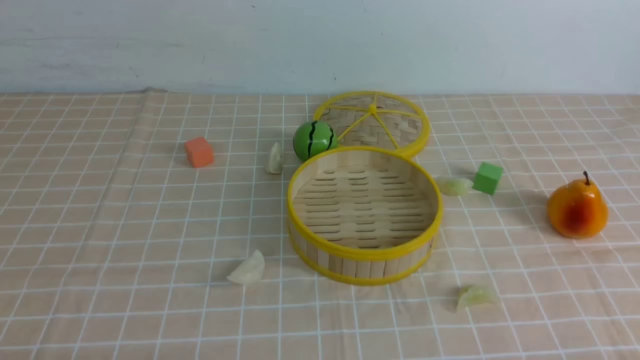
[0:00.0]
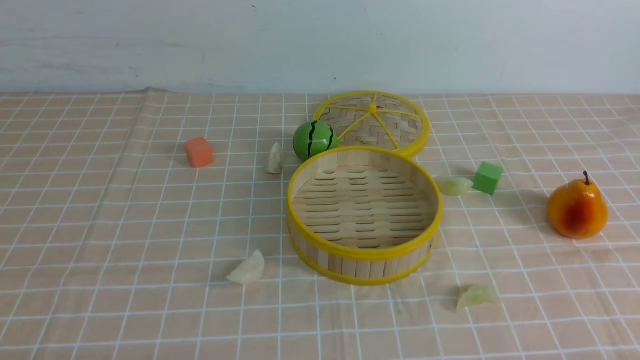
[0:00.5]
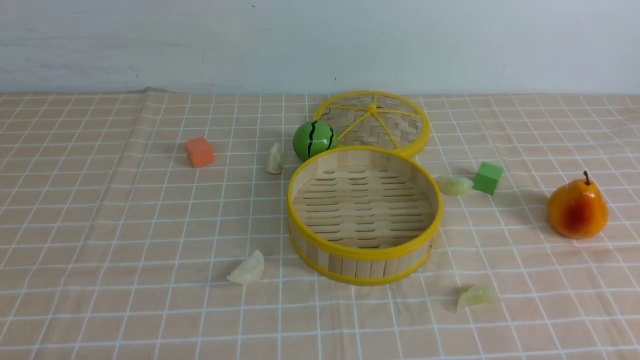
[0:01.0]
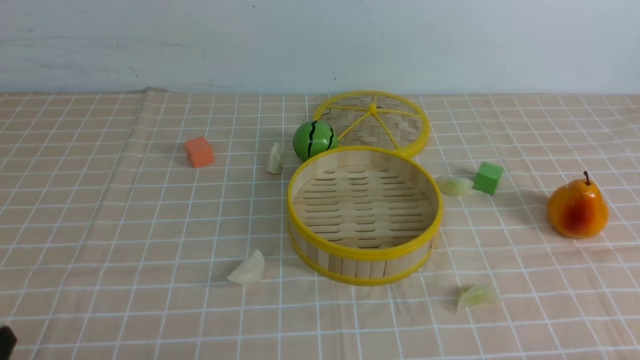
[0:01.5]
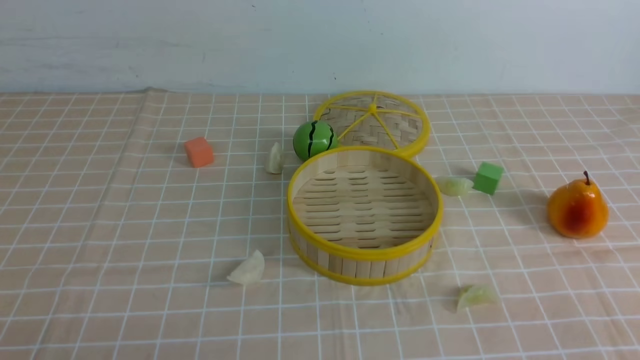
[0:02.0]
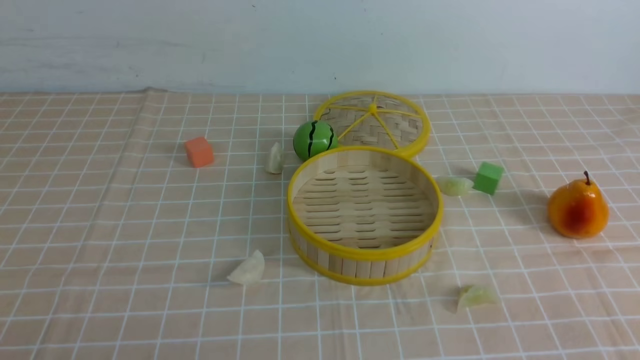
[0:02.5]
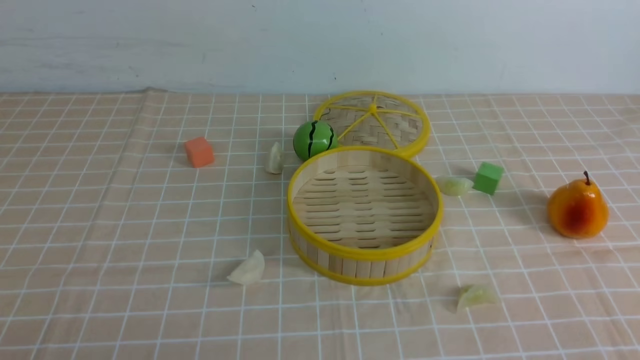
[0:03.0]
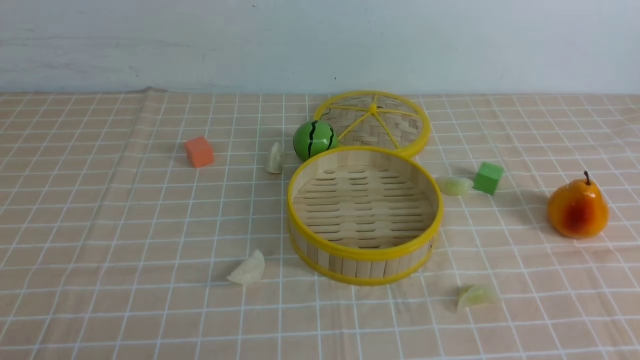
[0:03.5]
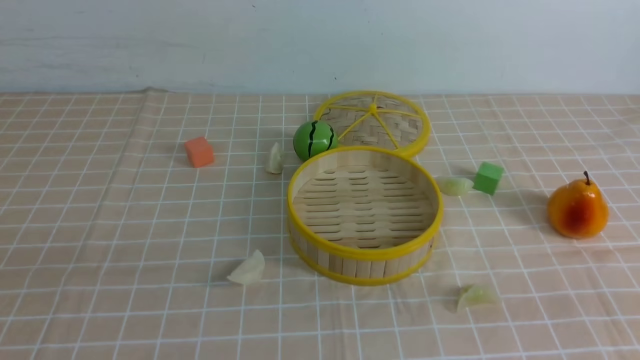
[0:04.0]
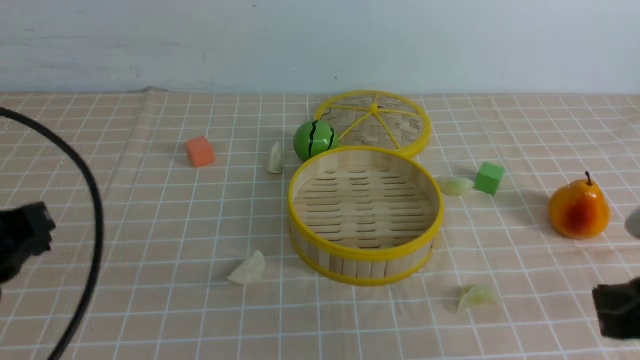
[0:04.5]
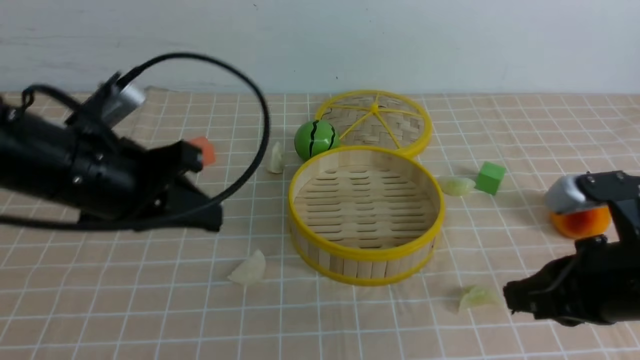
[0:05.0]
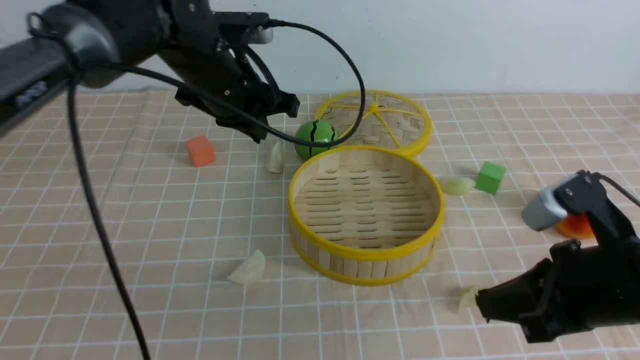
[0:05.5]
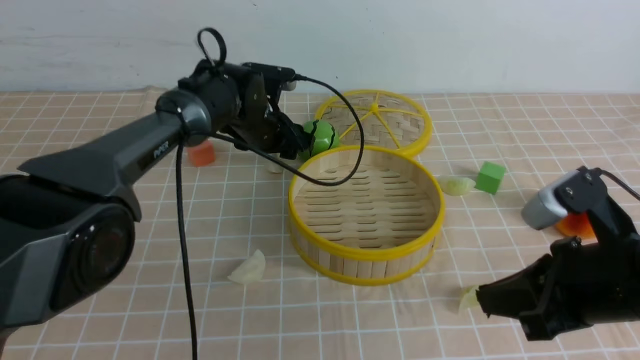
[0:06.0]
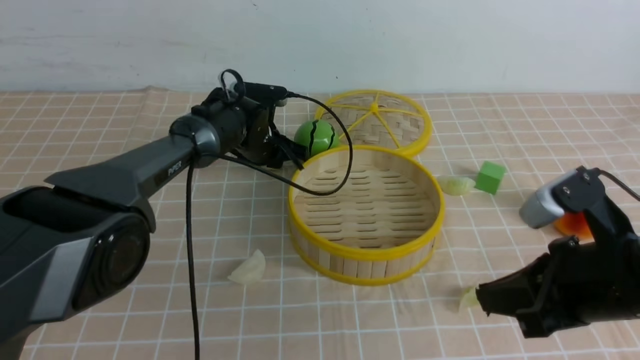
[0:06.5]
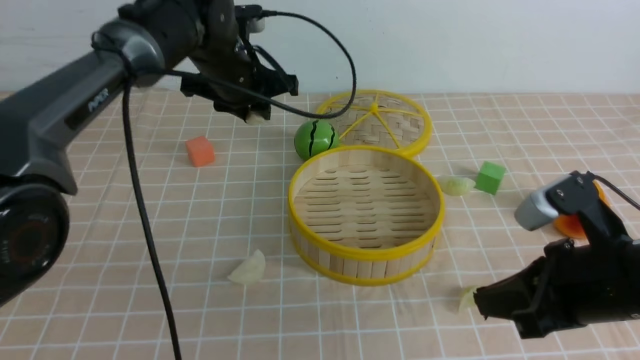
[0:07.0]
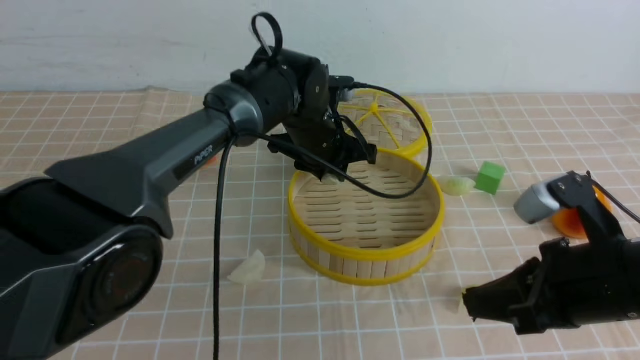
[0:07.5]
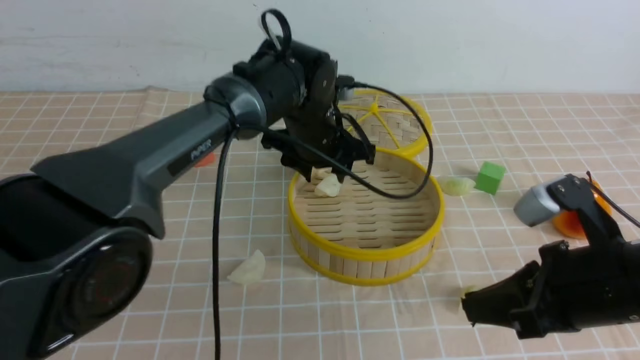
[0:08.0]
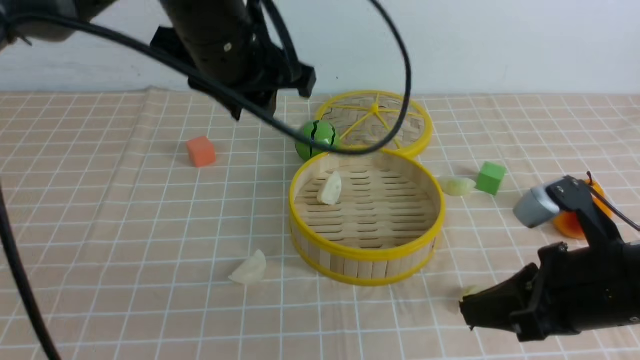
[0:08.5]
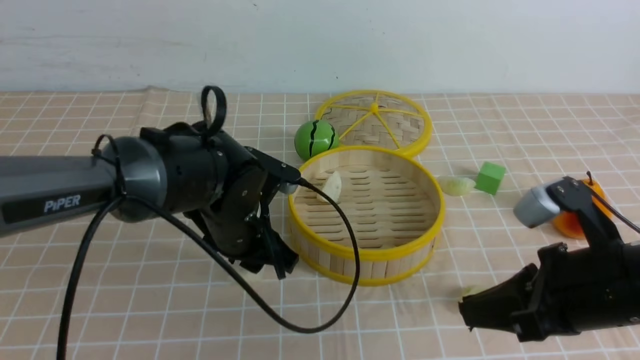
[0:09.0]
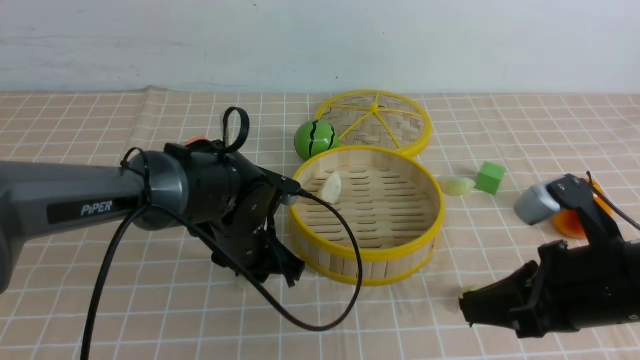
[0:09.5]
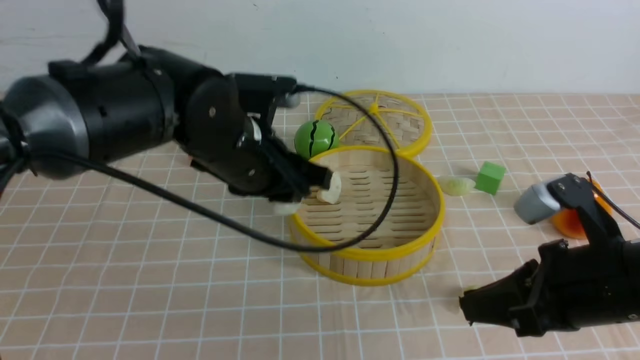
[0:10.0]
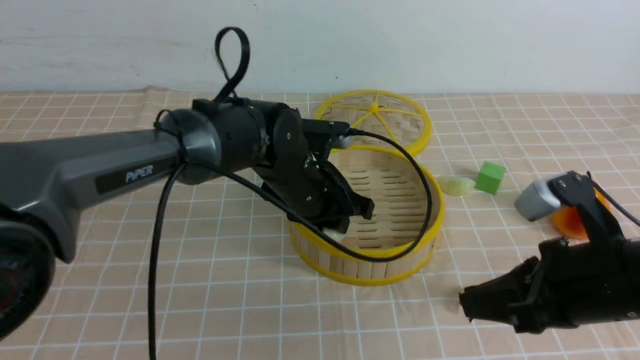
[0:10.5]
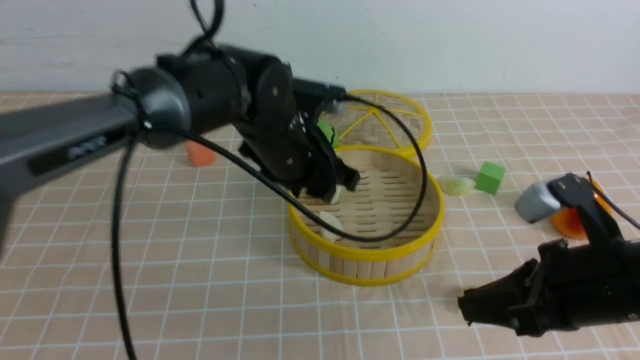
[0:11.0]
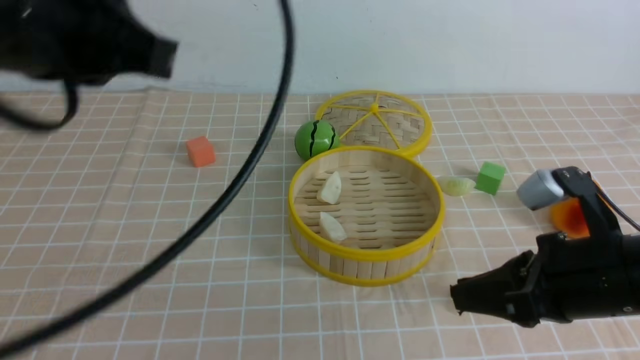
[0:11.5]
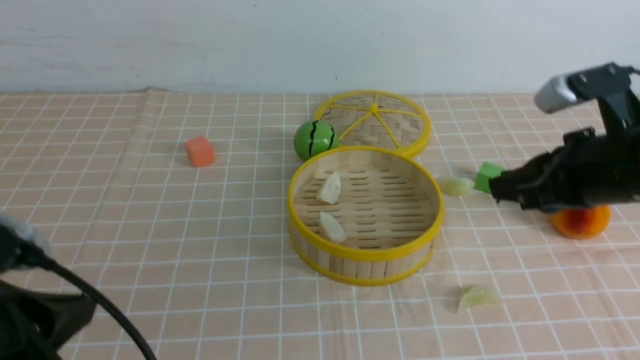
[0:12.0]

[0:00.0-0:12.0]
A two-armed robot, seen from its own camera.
Task of the whole recording: put the dumplings into the steamer on the table with the brown tablecloth.
Step, 0:00.0 to 0:06.5: use the left arm to grab a dumpling.
Step, 0:07.0 to 0:07.5: use the left arm to put the dumpling into the steamer.
Step, 0:08.0 to 0:09.0: use the left arm to grab a dumpling.
Step, 0:10.0 to 0:11.0: use the left arm to put the dumpling into the steamer.
0:04.0 to 0:06.0: The right gripper travels forward and to the left by roughly 15 cm; the left gripper goes approximately 50 cm forward and to the right, and opens.
0:06.0 to 0:08.0: The left gripper goes up and down, approximately 10 cm each way, reversing 2 times, and closes, then opens again.
0:08.0 to 0:10.0: The left gripper swings up and down, approximately 20 cm each way, with 2 reversals, and closes up.
0:10.0 to 0:12.0: The left gripper is displaced backward and to the left by some 25 cm, and closes up; the right gripper moves forward, some 10 cm.

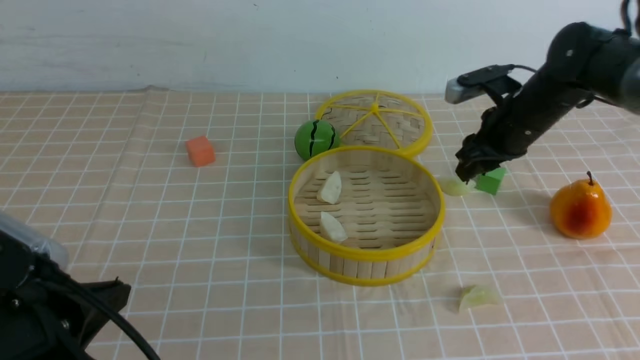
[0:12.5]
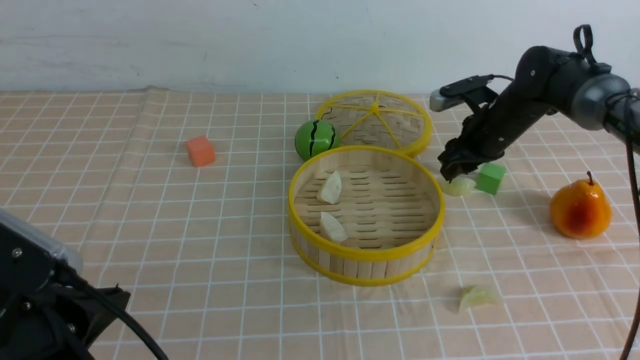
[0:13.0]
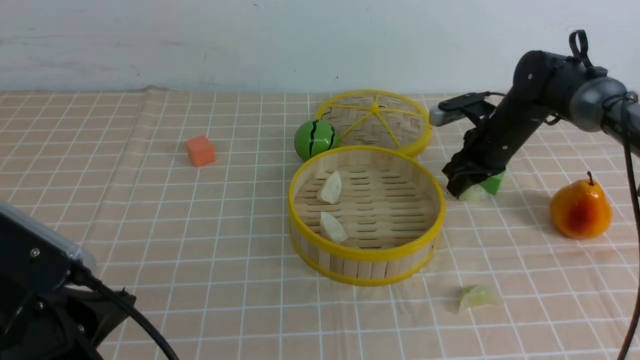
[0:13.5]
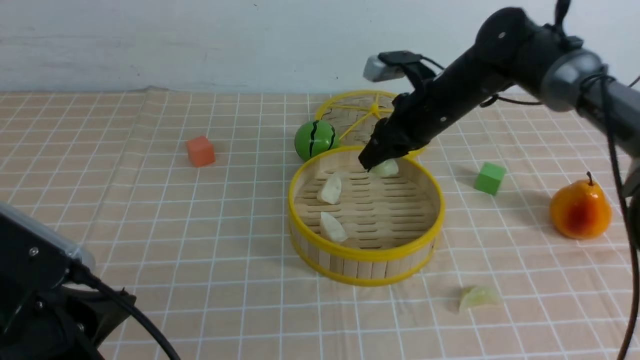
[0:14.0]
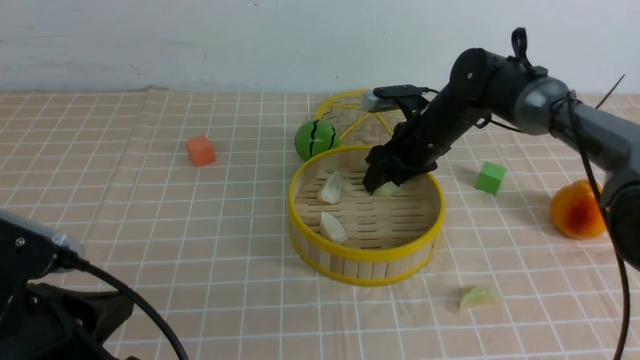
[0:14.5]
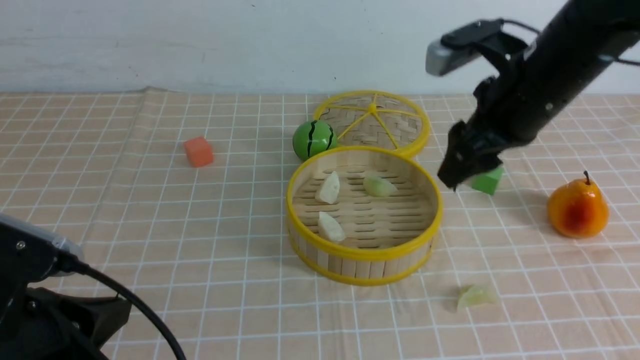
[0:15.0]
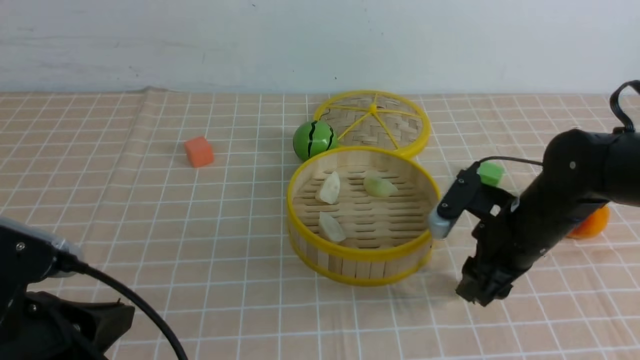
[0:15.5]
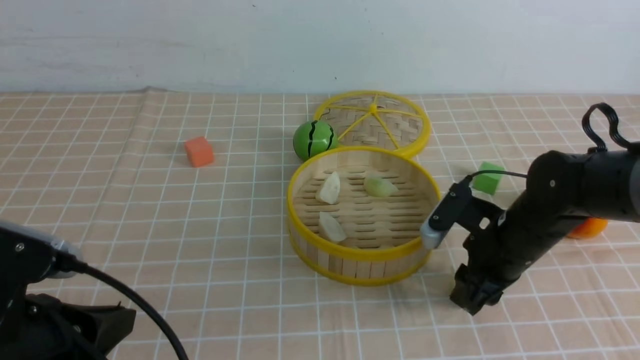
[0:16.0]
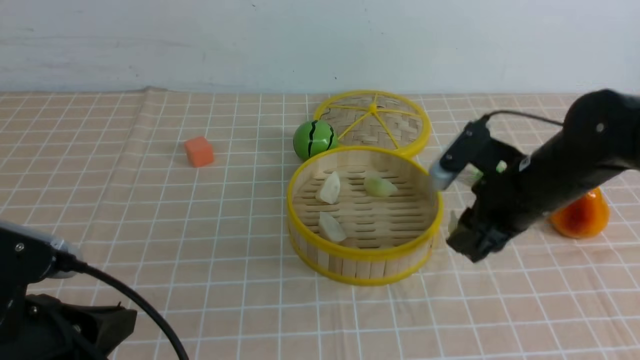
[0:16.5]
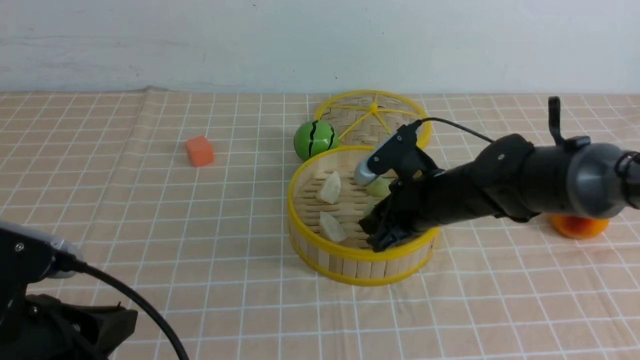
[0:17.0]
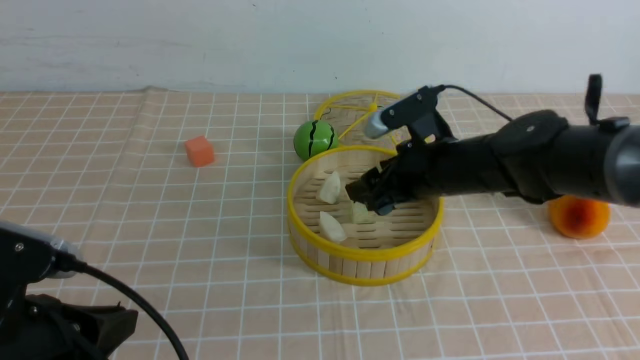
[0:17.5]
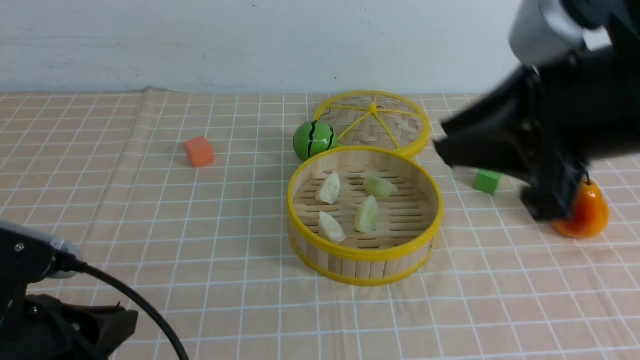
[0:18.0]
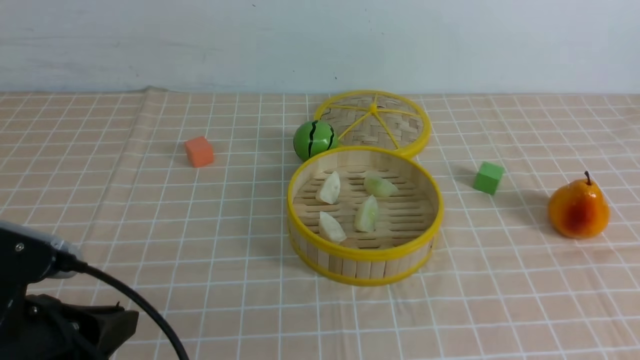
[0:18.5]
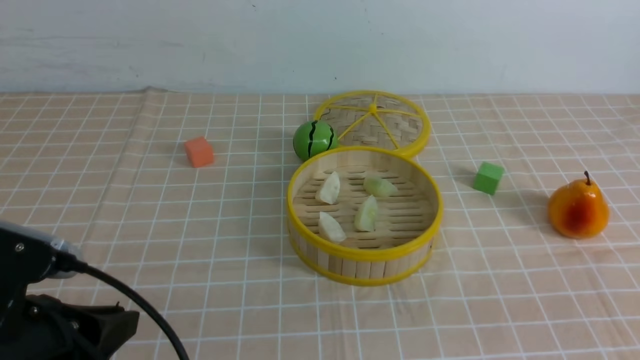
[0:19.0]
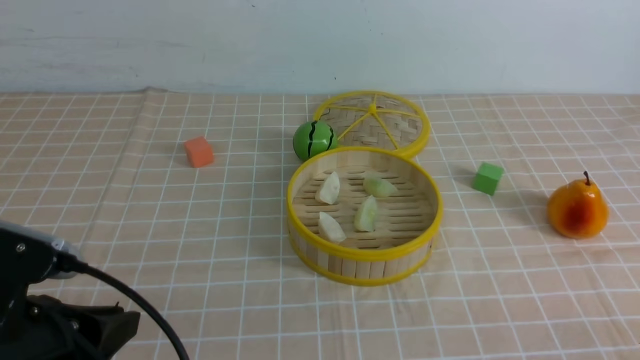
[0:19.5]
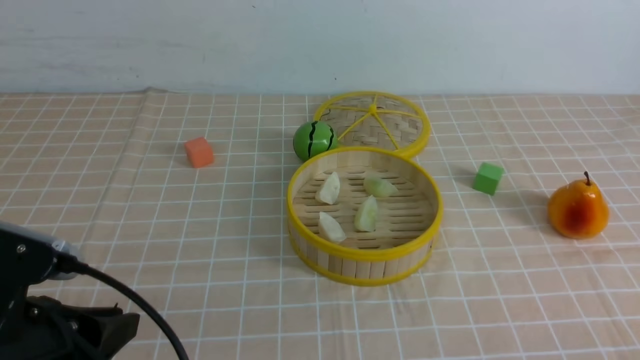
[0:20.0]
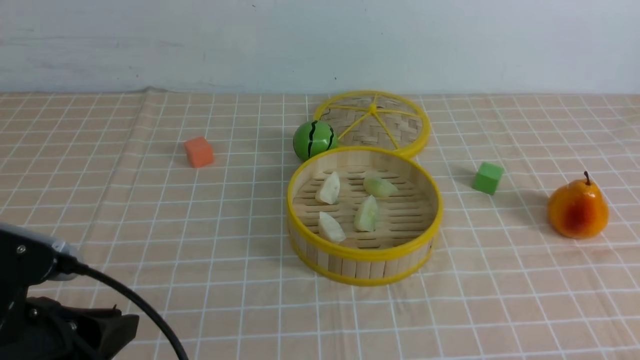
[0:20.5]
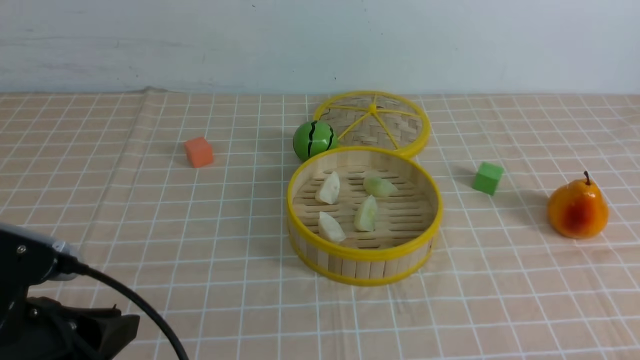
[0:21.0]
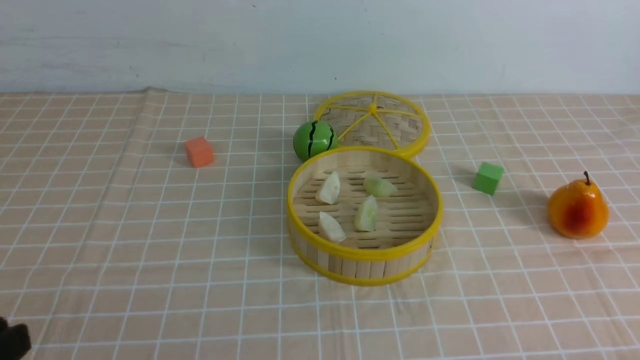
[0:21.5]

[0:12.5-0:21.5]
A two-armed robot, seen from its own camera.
Task of the whole recording: put the dumplings into the steamer on the table with the brown tablecloth.
Step, 0:13.5 to 0:14.5: use the right arm to put the dumpling into the steamer.
Step, 0:15.0 to 0:16.0: use the right arm to grab a dumpling.
Step, 0:16.5 to 0:17.5: use the right arm to put the dumpling into the steamer.
0:12.5 to 0:14.5: The right gripper travels to the left by some 10 cm.
0:14.5 to 0:17.0: The right gripper moves backward, some 10 cm.
0:17.0 to 0:19.5: The right gripper moves backward and to the right, approximately 35 cm, and closes up.
0:19.5 to 0:21.5: The left gripper heads backward, covering roughly 5 cm.
